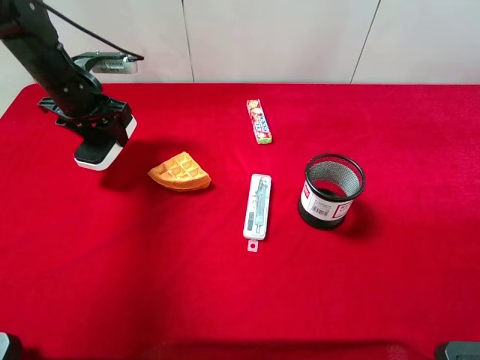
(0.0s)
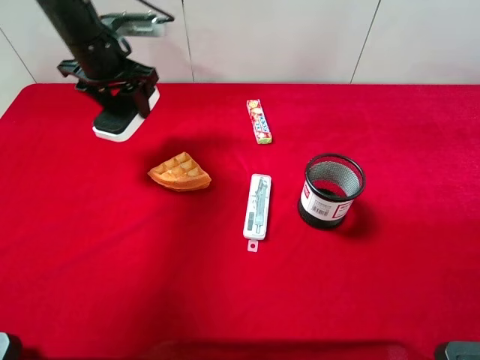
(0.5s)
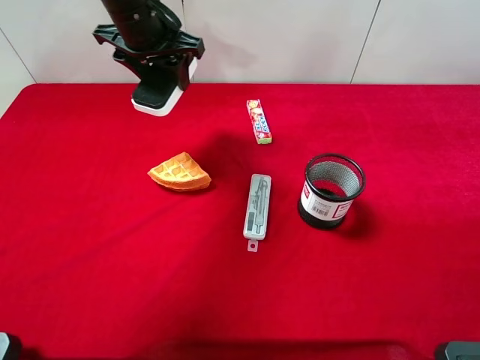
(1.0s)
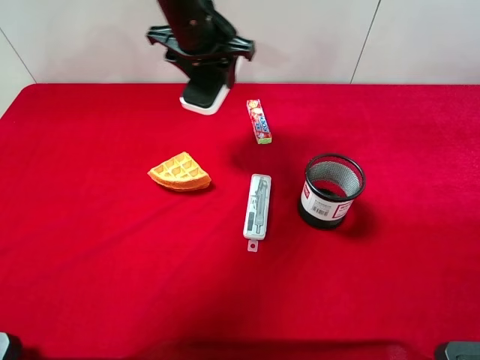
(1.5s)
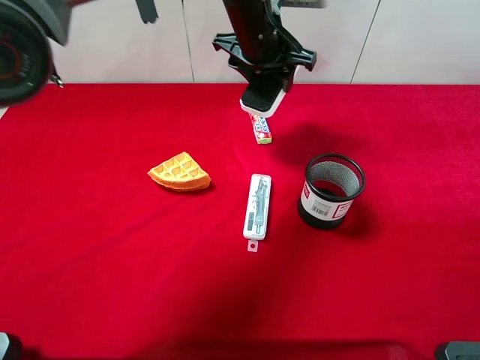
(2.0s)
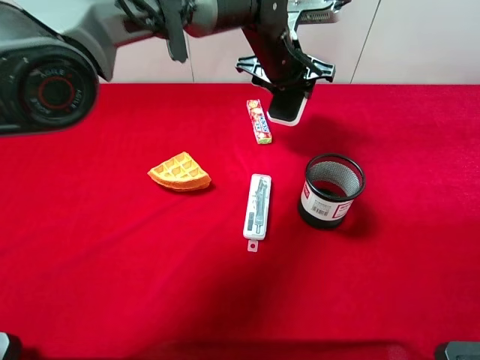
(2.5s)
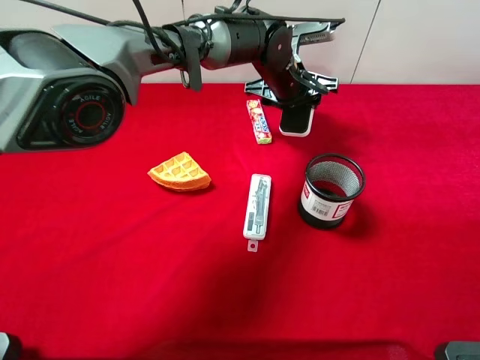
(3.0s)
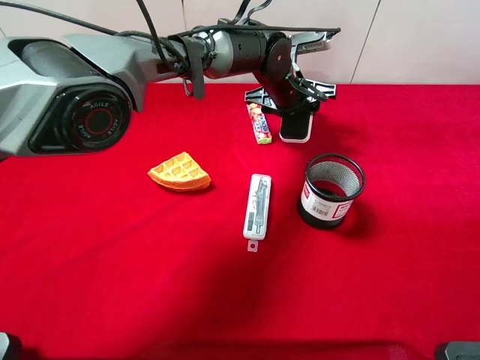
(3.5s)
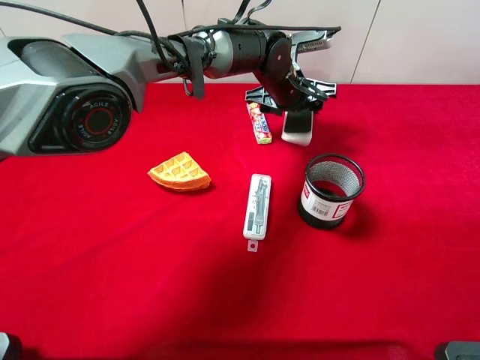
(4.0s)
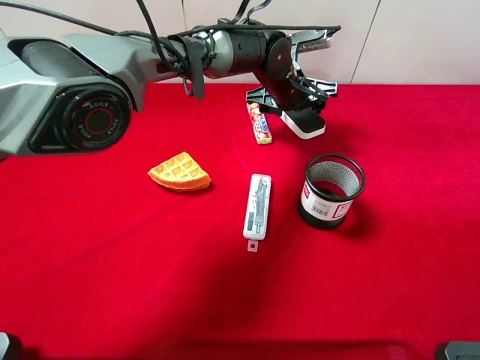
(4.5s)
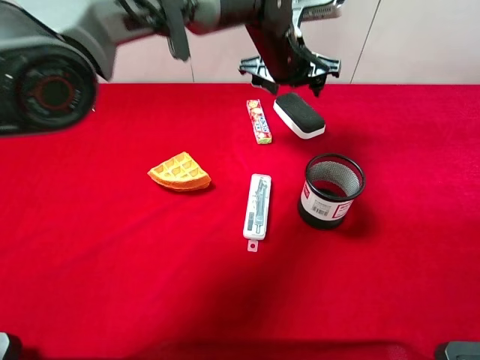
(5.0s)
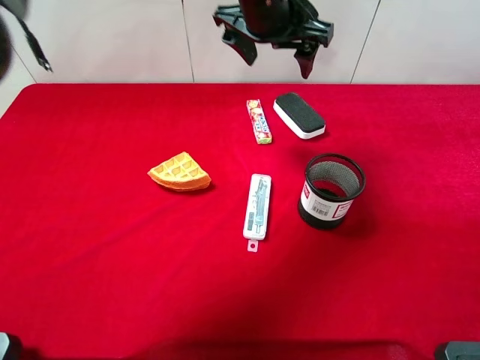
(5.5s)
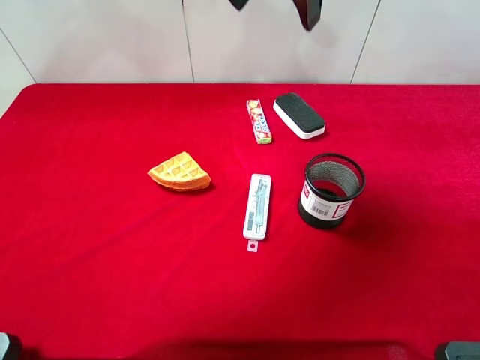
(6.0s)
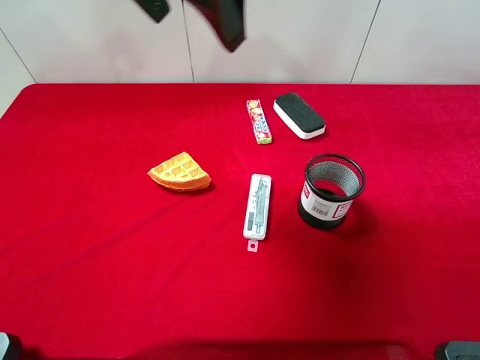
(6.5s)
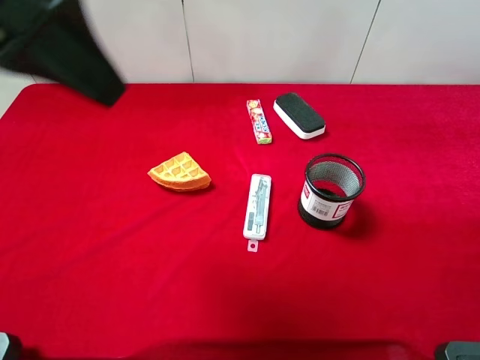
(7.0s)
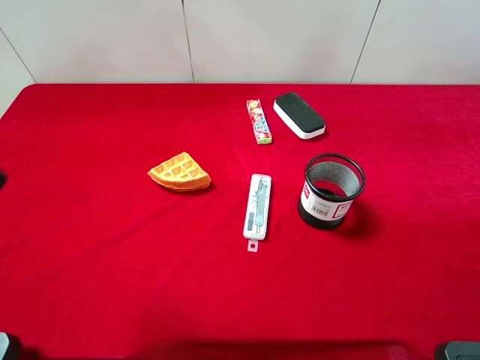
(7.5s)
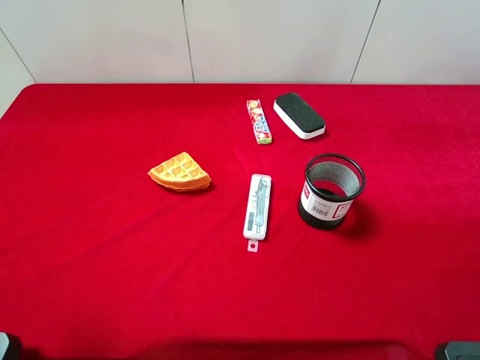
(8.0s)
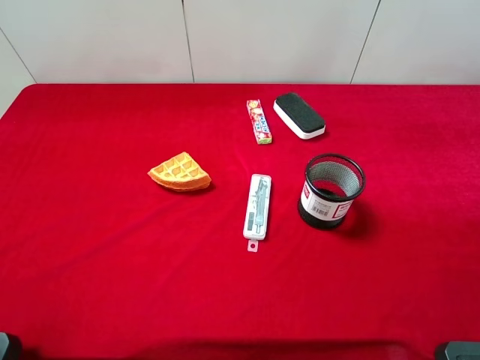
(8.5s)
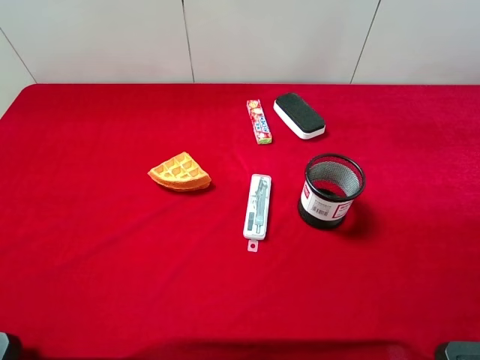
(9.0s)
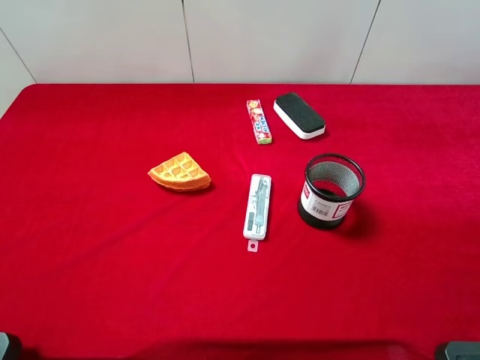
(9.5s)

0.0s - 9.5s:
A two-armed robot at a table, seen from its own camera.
Task of the whole recording: the gripper move the object.
Step, 0.0s - 5.0s: Place the white blackboard erasure on the table with the left gripper.
0.0s - 2.0s: The left gripper heads to the right, covering about 30 cm.
2.0s - 4.0s: The left gripper heads downward, covering approximately 10 cm.
4.0s - 5.5s: The left gripper heads upward, covering approximately 15 cm, and opens.
5.5s - 7.5s: The left gripper travels backward and to the left by roughly 40 cm.
